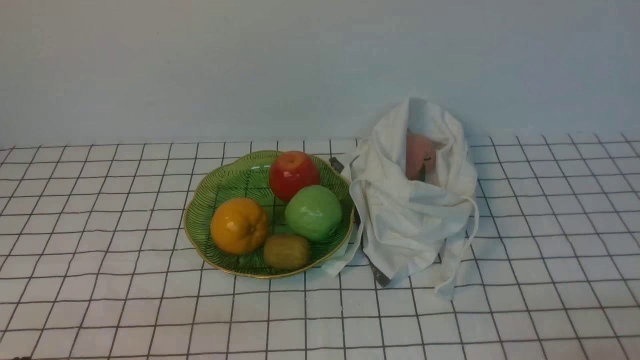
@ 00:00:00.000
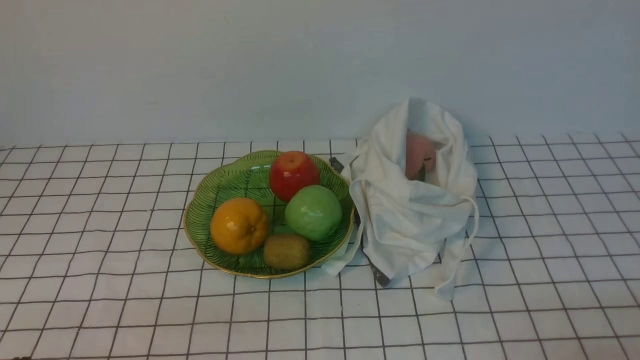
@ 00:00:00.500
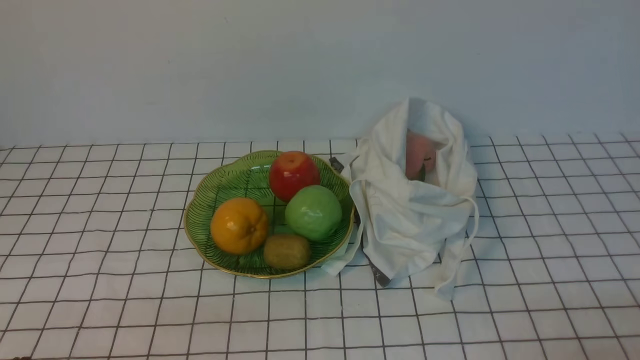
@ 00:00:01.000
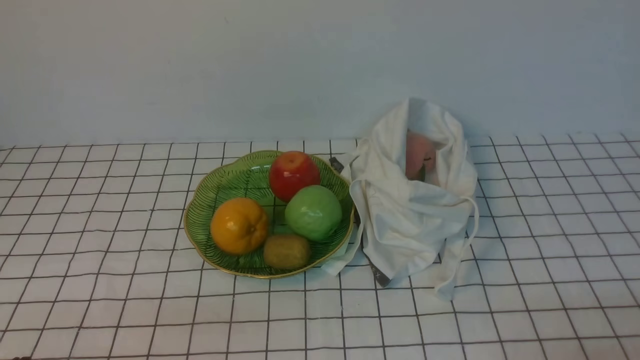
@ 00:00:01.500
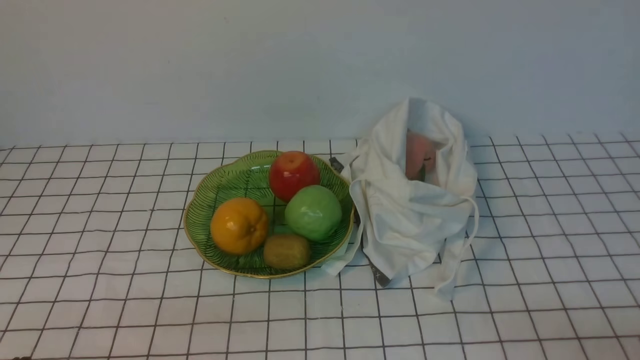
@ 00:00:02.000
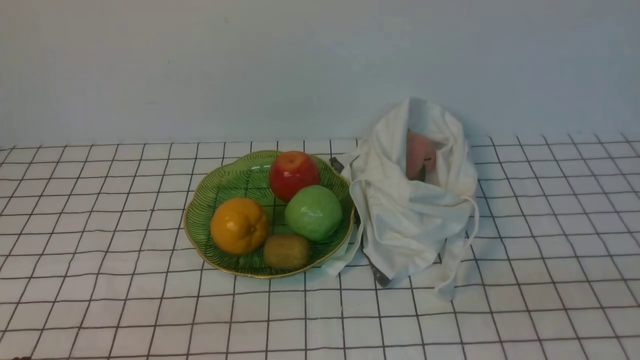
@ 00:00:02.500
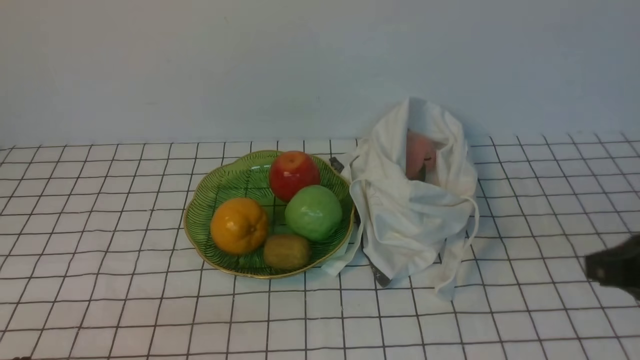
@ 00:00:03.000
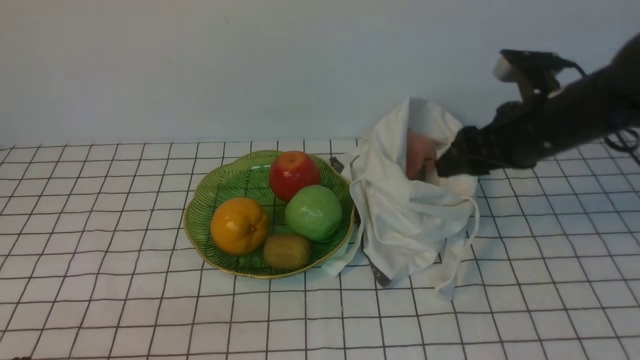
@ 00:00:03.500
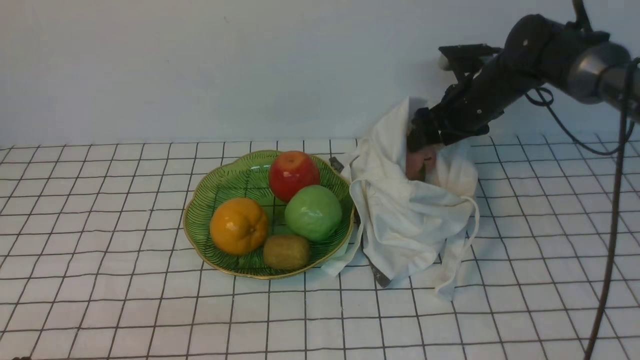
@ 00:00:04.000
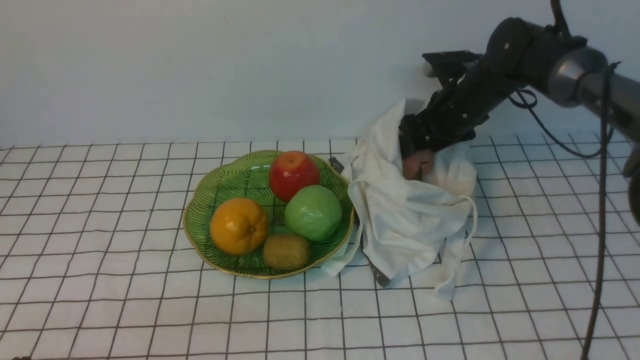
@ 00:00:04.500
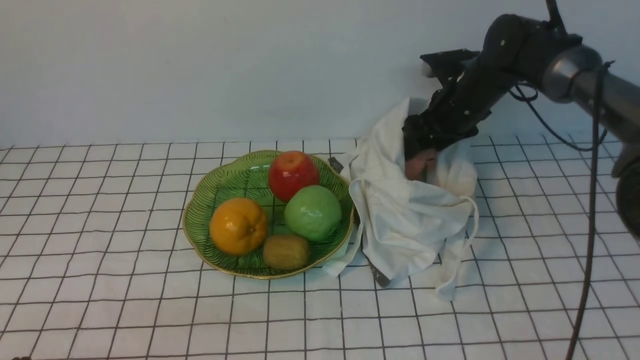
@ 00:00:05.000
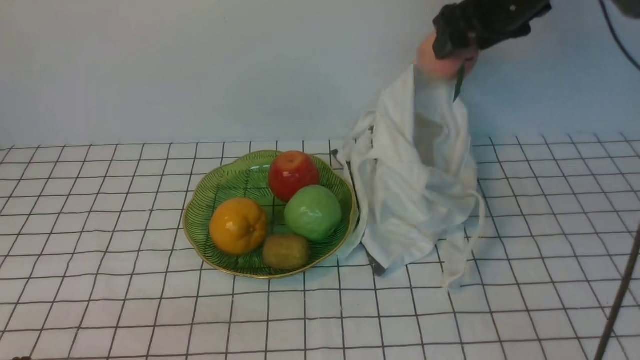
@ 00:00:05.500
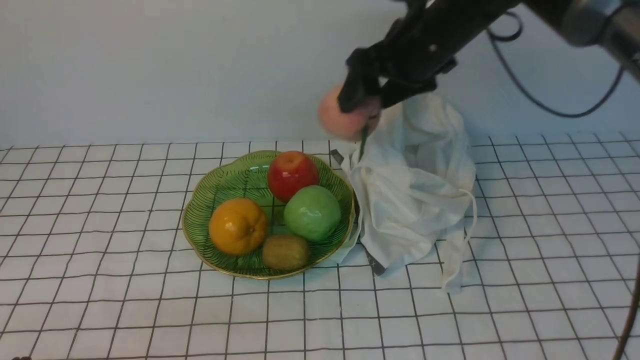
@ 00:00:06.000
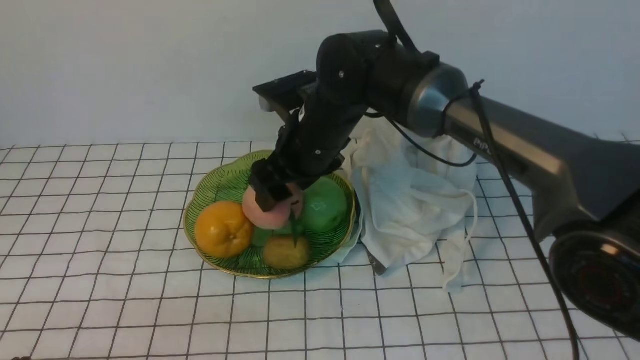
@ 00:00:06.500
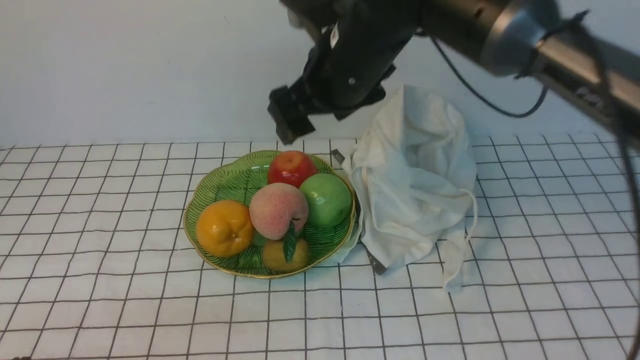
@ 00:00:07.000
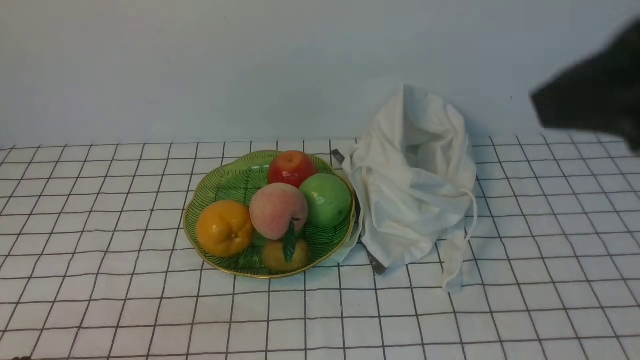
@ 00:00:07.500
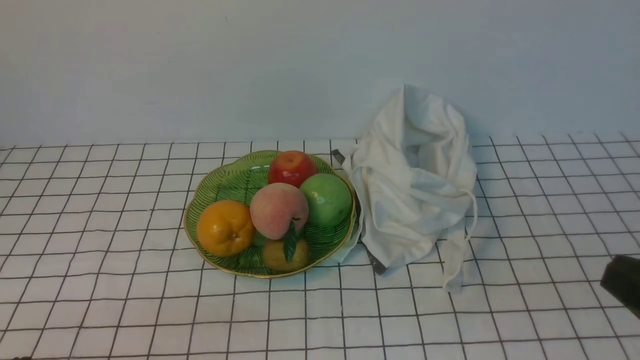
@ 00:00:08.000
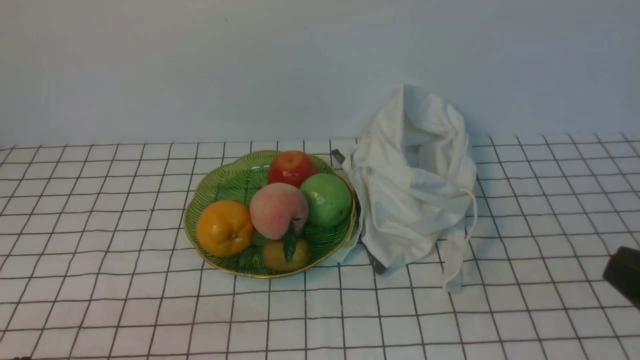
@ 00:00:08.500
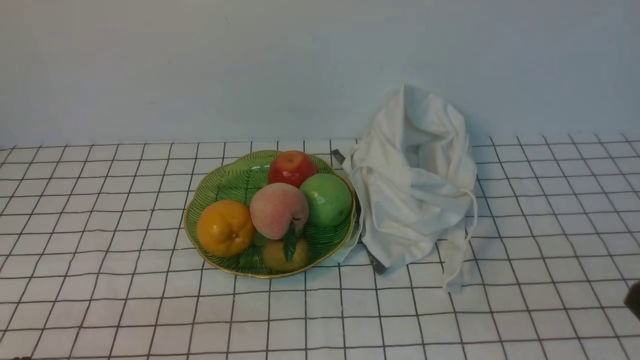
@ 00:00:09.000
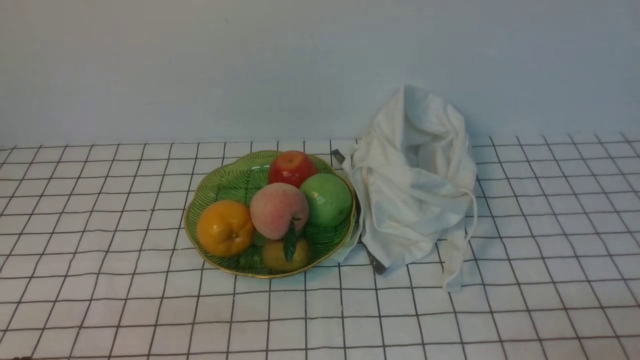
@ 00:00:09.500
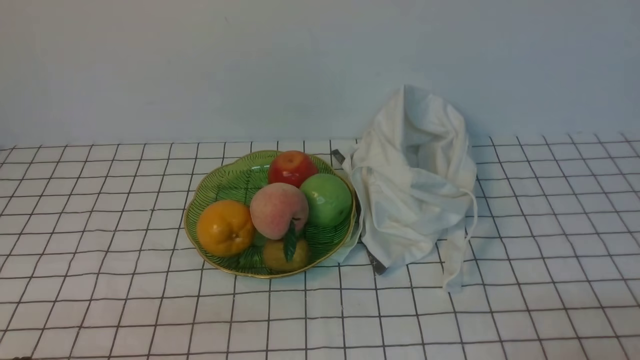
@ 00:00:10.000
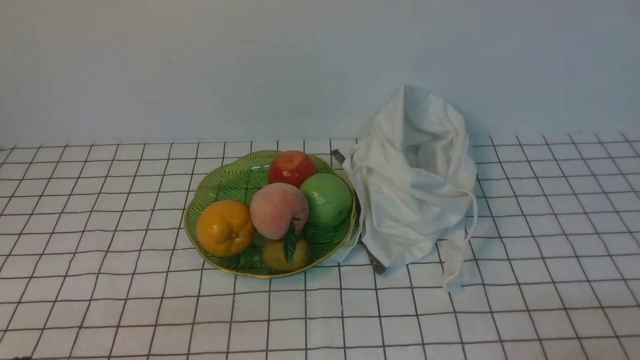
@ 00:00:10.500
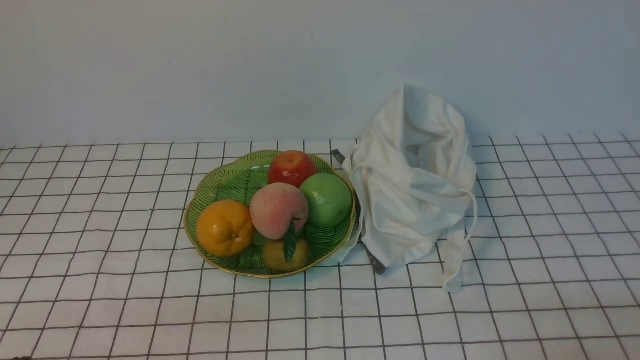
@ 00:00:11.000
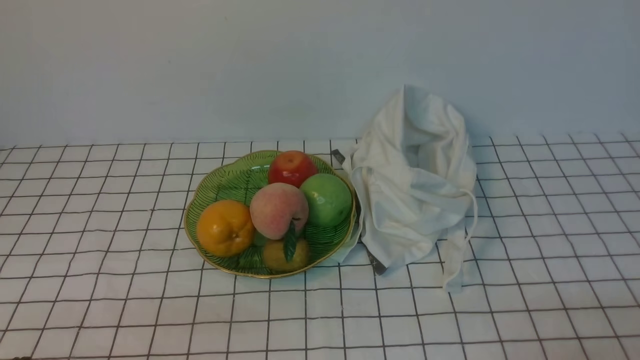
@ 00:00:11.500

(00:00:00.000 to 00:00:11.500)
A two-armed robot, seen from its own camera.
Step, 00:00:00.000 - 00:00:05.000: use the right arm to grab a peach from the bag.
Step, 00:00:05.500 - 00:00:06.500: use the right arm to put the peach into the empty plate on the left.
00:00:02.000 - 00:00:04.000: The right gripper heads forward, covering about 40 cm, and opens up.
00:00:04.000 - 00:00:06.000: The right gripper goes roughly 15 cm upward and to the left.
00:00:06.000 - 00:00:07.500: The right gripper shifts some 30 cm backward and upward, and closes.
00:00:07.500 - 00:00:09.500: The right gripper is displaced downward, to the right and backward by approximately 35 cm, and closes.
